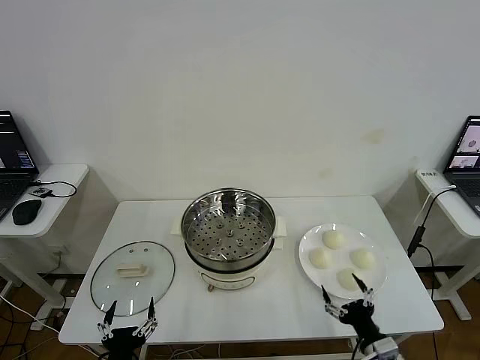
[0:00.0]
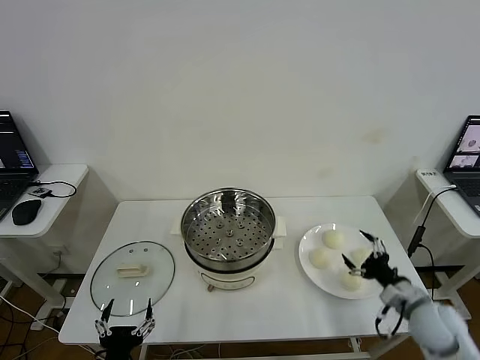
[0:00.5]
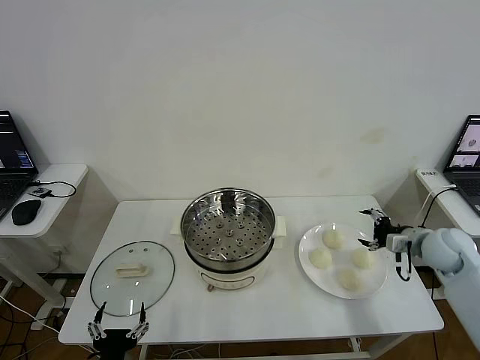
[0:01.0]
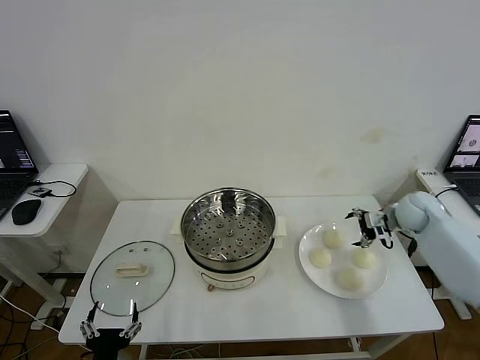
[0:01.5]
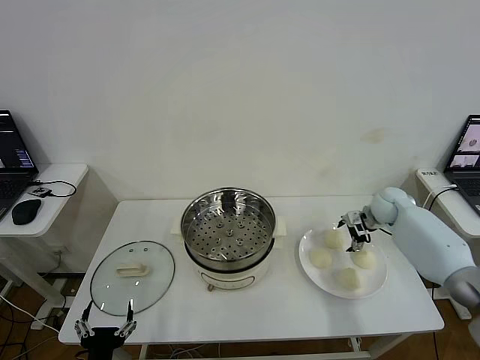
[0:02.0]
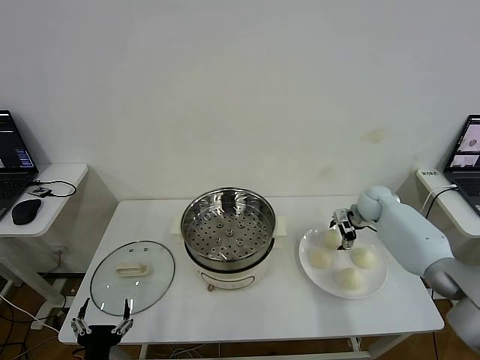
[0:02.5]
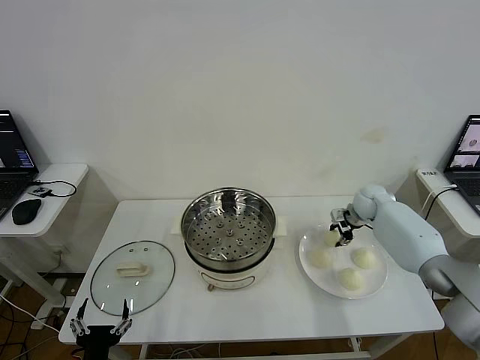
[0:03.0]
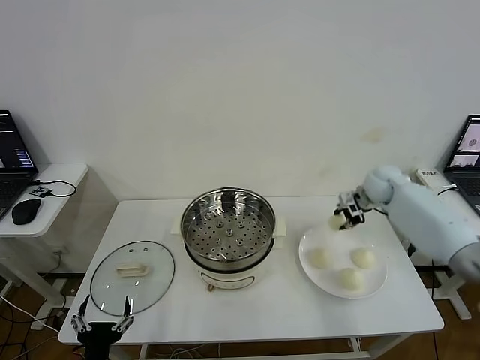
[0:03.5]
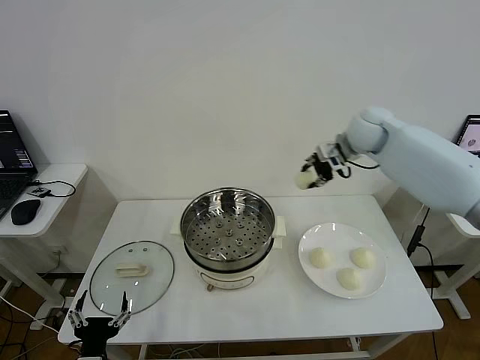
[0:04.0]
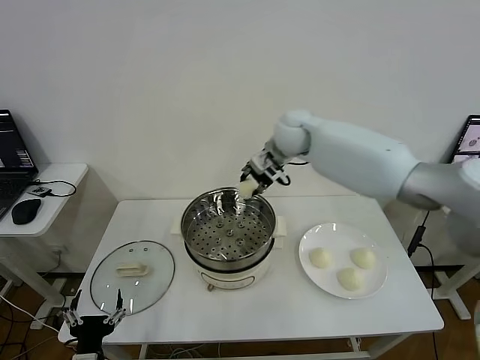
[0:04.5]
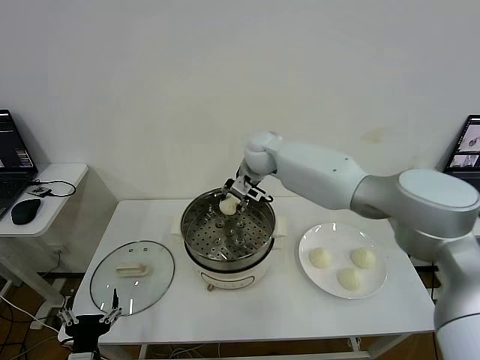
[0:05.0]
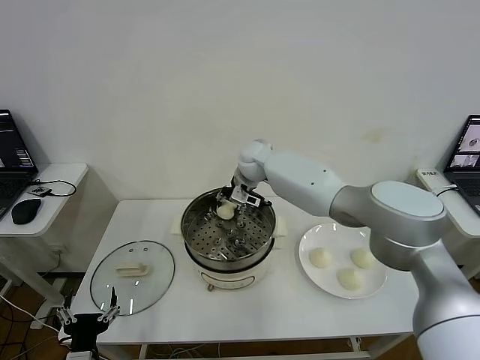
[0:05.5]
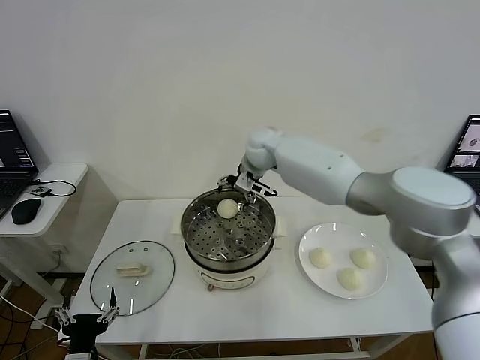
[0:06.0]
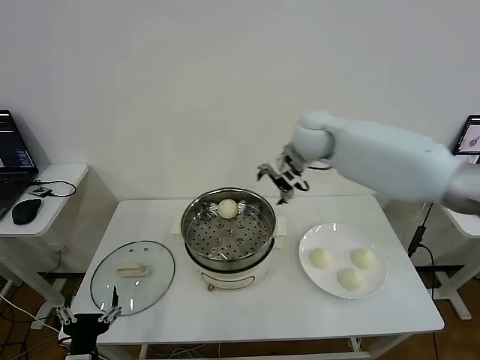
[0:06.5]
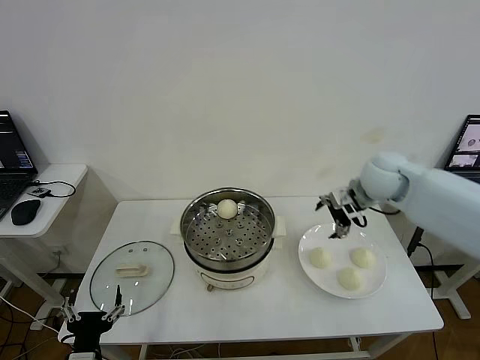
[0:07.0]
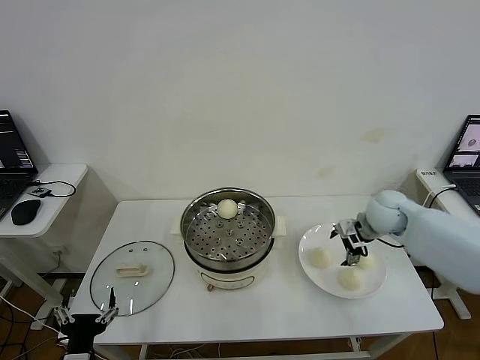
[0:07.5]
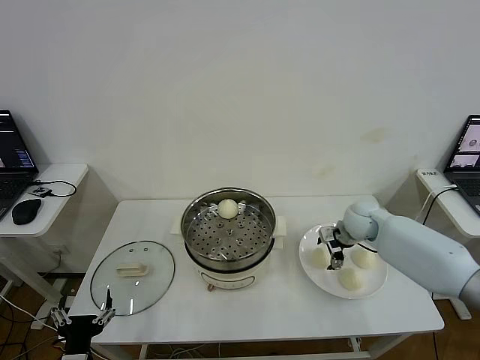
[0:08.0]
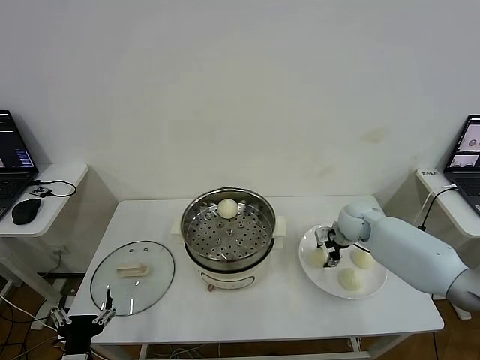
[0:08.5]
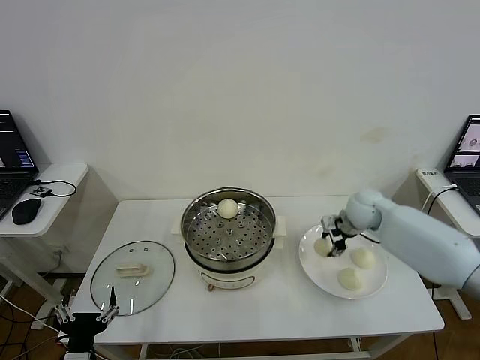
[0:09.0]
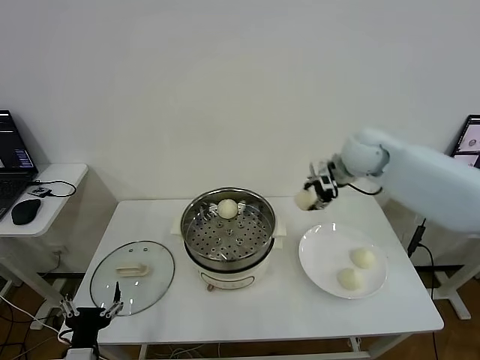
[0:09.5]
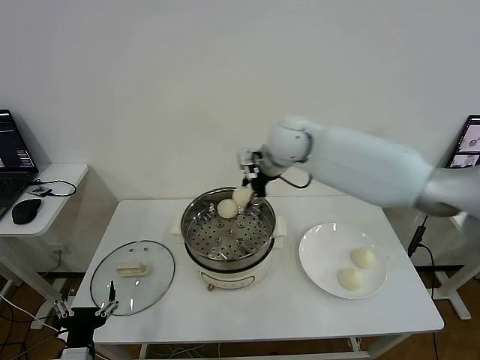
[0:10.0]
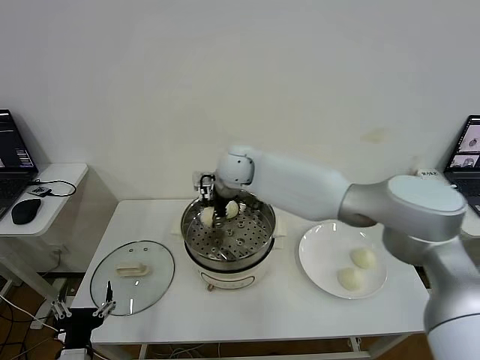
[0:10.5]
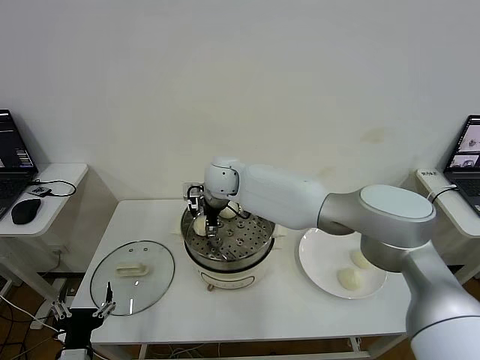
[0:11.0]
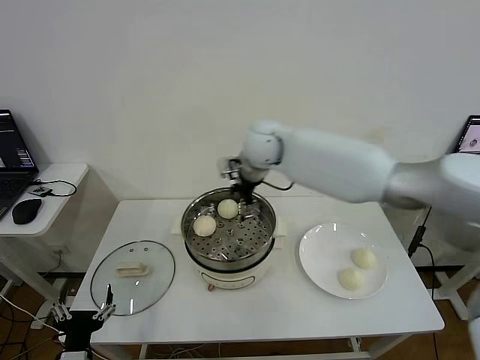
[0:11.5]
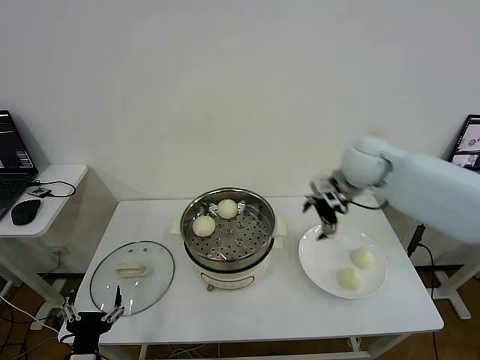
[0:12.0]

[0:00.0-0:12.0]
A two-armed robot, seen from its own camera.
Step, 0.0 to 3.0 s: Grasp the baozi in the plate with right gripper.
Step, 3.5 to 5.5 s: Place the baozi on the steamer with right gripper.
Step, 6.0 to 8.5 s: Grasp the baozi in the plate with right gripper.
Step, 9.0 to 11.0 s: Place the baozi on the steamer with right gripper.
2.0 to 4.0 s: The right gripper travels upward and to the left by about 30 cm, and closes up.
4.0 to 6.0 s: The right gripper travels to the left by approximately 15 cm, and opens.
6.0 to 8.0 s: The right gripper moves to the right and downward, some 30 cm.
8.0 to 10.0 s: The right gripper travels to the left and upward by roughly 30 cm, and closes its fingers.
10.0 to 12.0 s: The right gripper travels to the right by some 20 cm, and opens up.

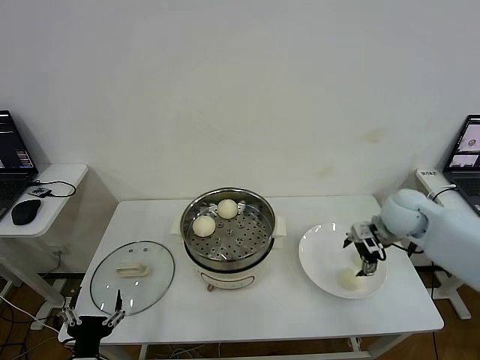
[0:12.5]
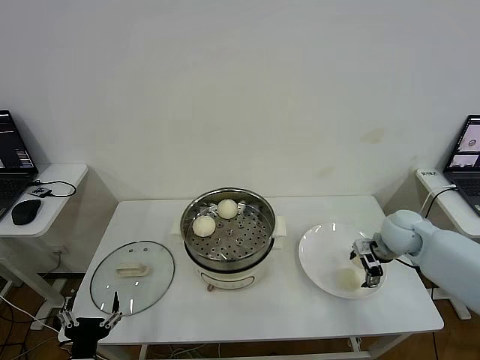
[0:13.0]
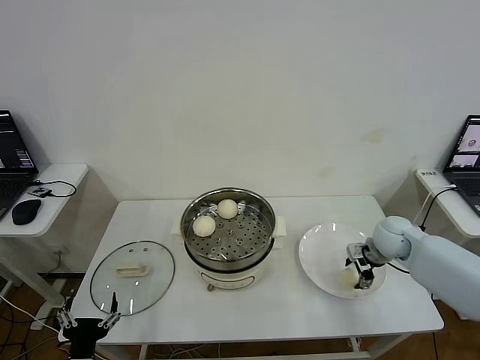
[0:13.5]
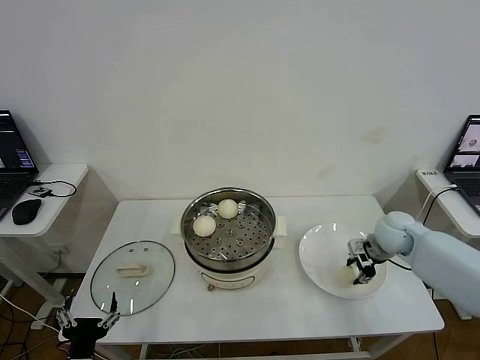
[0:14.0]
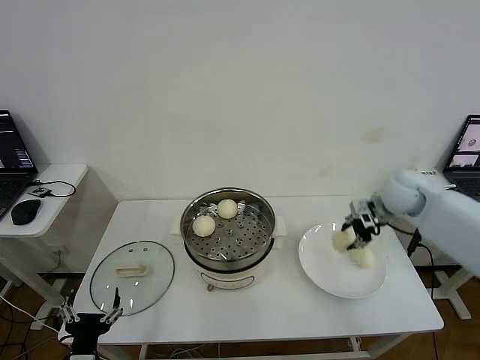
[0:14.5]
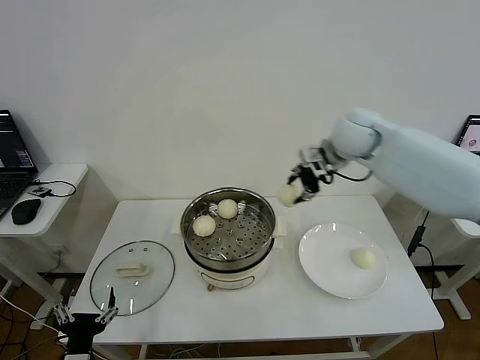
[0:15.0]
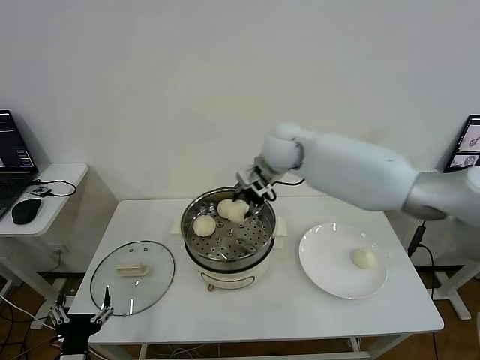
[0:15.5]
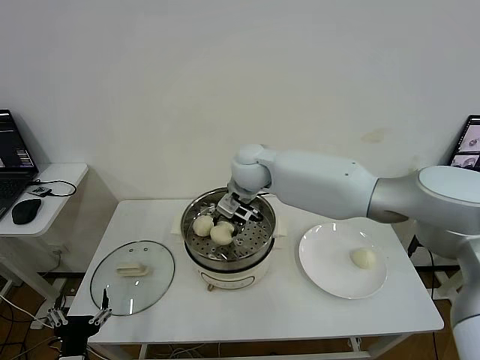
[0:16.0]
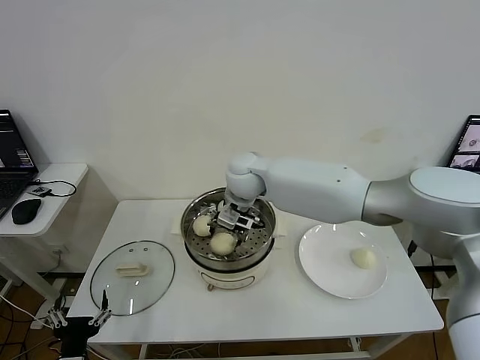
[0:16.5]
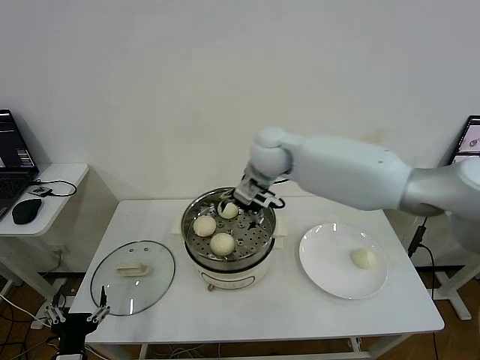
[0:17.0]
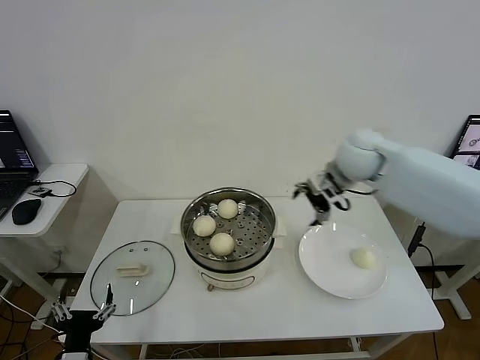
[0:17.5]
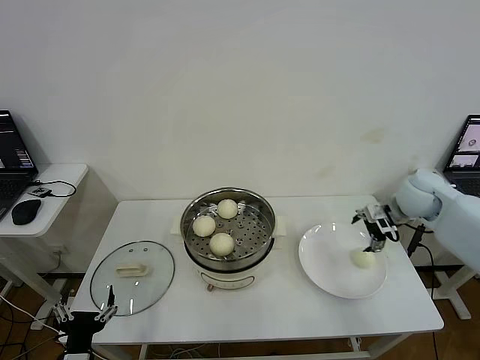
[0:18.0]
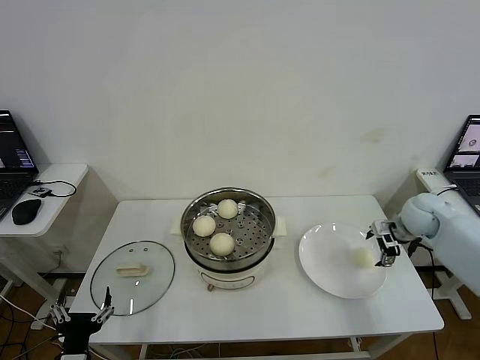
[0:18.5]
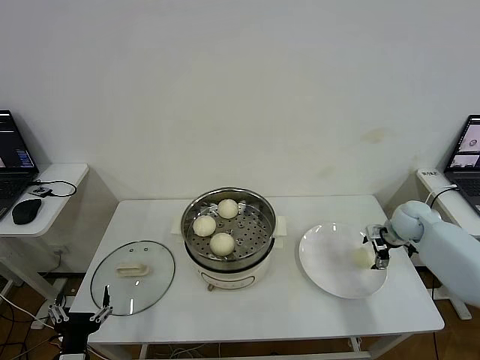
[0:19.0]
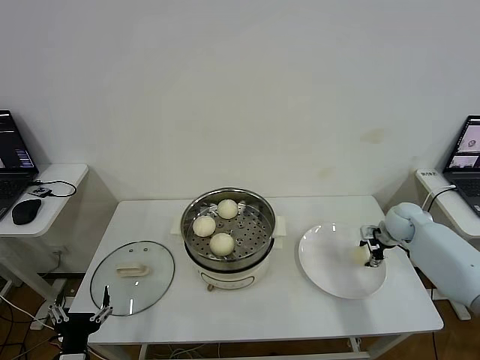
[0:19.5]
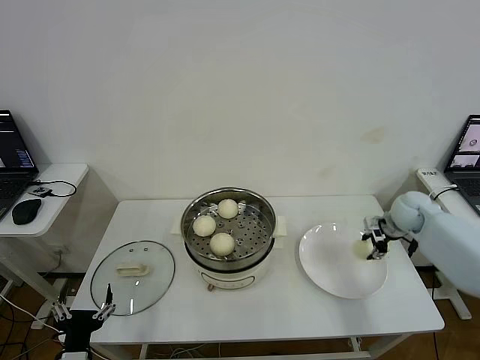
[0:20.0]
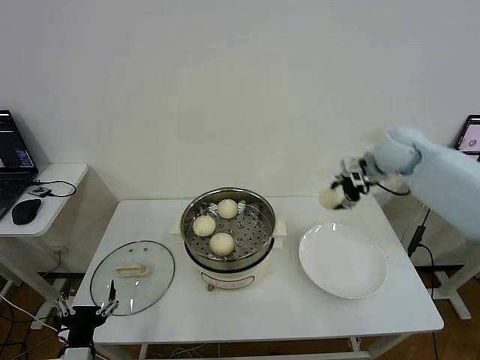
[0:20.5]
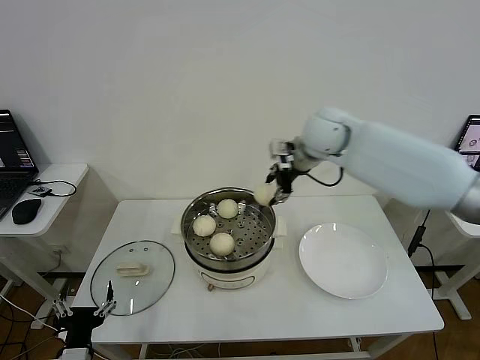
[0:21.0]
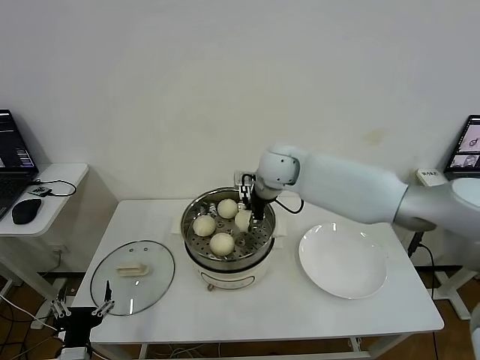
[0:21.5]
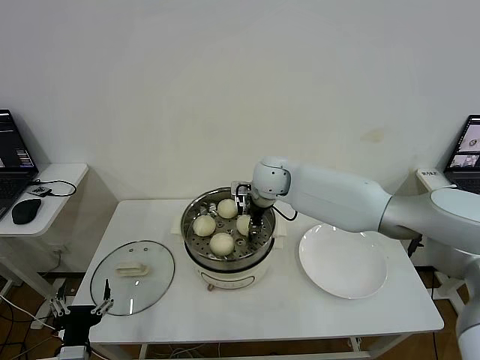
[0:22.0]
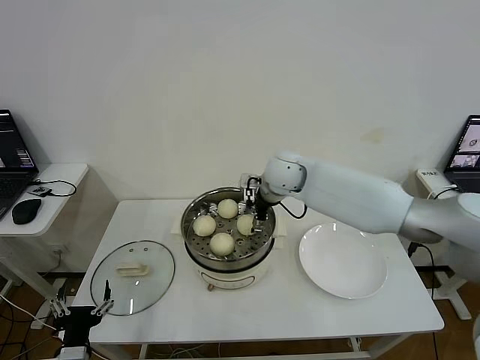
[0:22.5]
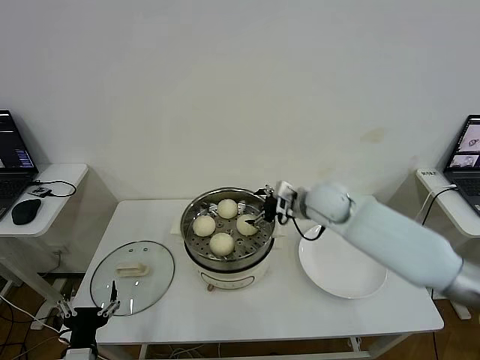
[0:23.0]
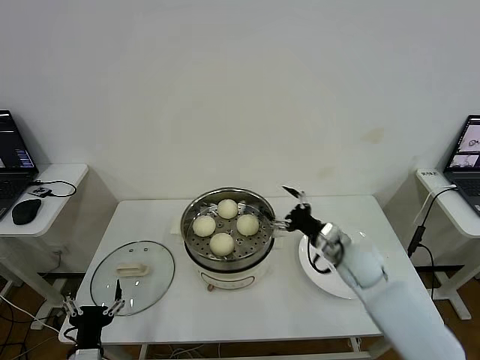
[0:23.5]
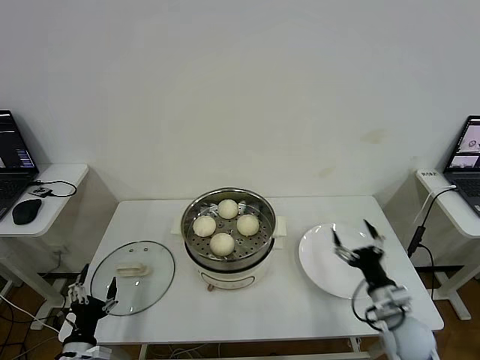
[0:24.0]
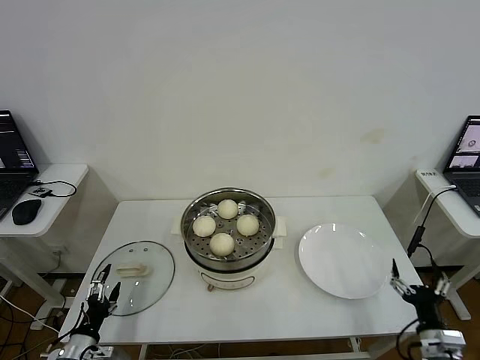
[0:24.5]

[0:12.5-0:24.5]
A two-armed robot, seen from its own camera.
Step, 14.0 to 16.5 s: Place the baozi on the steamer with right gripper.
Step, 17.0 to 19.5 s: Grasp the baozi in the plate with right gripper.
Step, 20.0 to 22.0 s: Place the baozi on the steamer with right gripper.
12.5 to 14.5 s: The right gripper changes place by roughly 5 cm, and closes up.
14.5 to 16.5 s: The right gripper heads to the left, covering about 35 cm, and opens its fingers.
16.5 to 18.5 s: The right gripper shifts approximately 40 cm to the right.
18.5 to 20.5 s: The right gripper goes about 20 cm upward and to the left, and closes up.
20.5 to 22.5 s: The right gripper goes roughly 25 cm to the left, and opens its fingers.
22.5 to 24.5 s: The right gripper moves backward, to the right and downward, approximately 50 cm; the left gripper heads downward and to the left, covering approximately 10 cm.

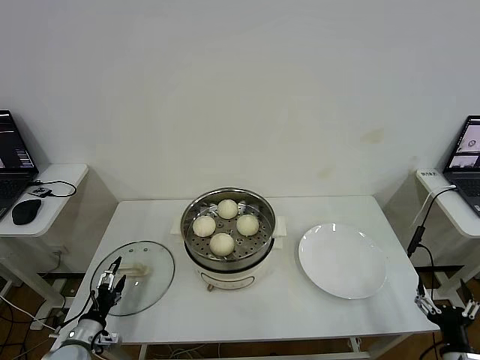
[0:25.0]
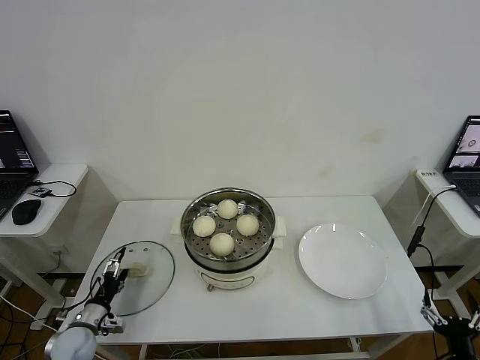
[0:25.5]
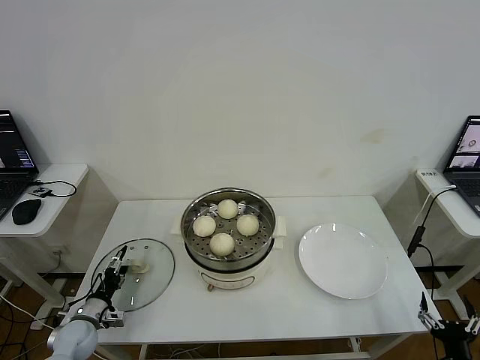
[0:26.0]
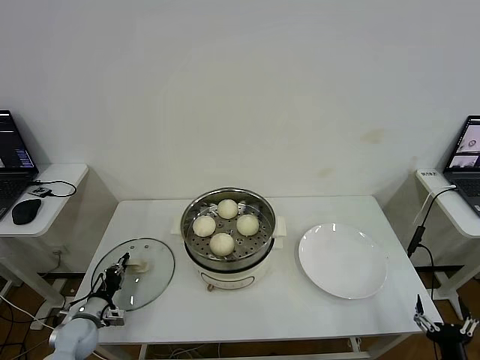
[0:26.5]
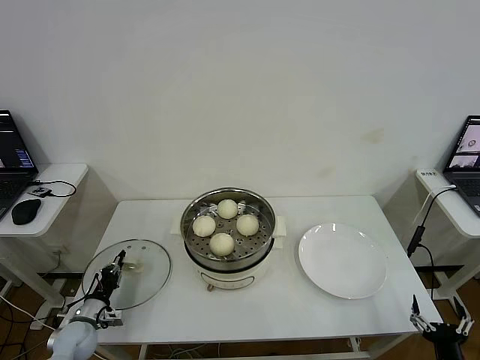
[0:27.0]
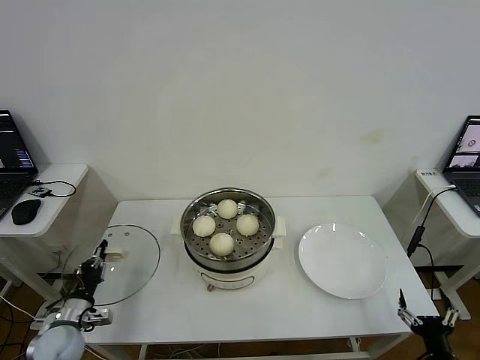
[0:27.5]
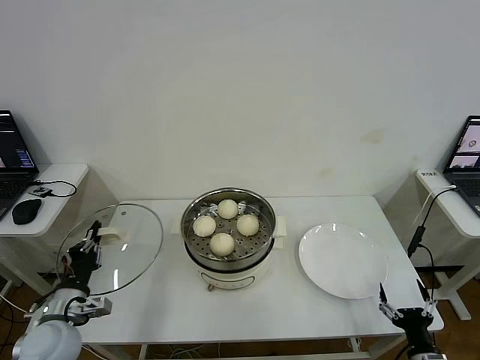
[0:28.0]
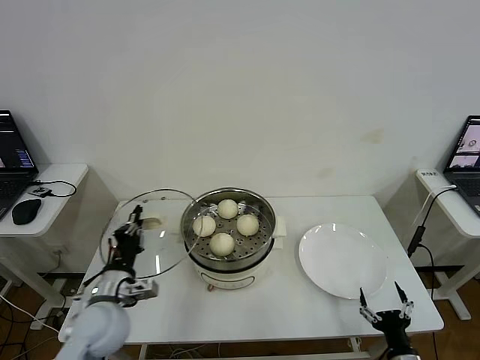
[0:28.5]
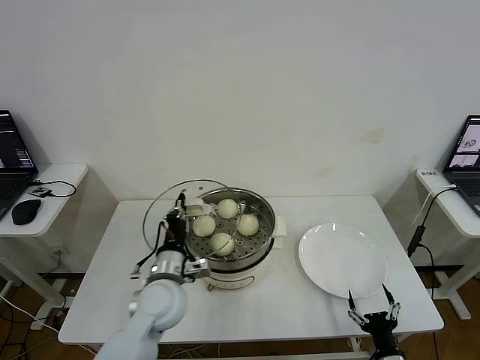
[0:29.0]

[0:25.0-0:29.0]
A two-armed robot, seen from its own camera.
25.0 to 27.0 s: The left gripper is displaced forward by approximately 5 cm, and closes.
27.0 to 29.0 s: The right gripper heads to the left, covering about 10 cm, while the left gripper moves to the right and upward, roughly 30 cm.
